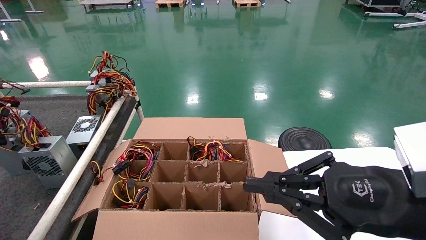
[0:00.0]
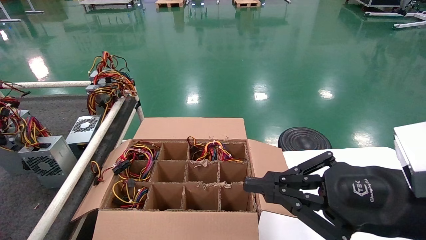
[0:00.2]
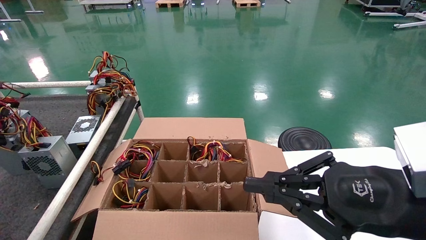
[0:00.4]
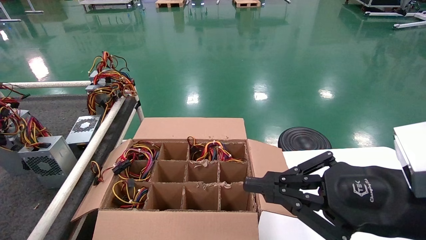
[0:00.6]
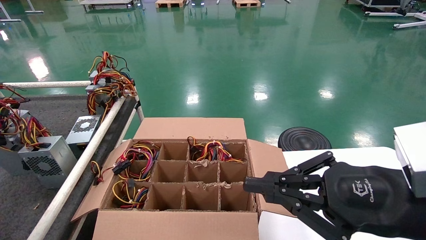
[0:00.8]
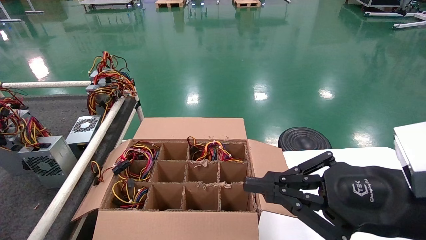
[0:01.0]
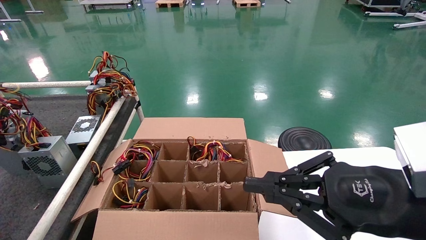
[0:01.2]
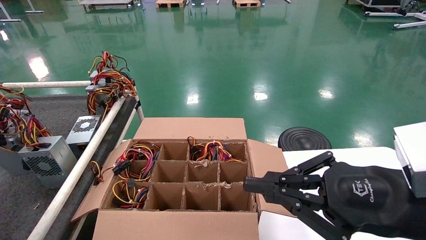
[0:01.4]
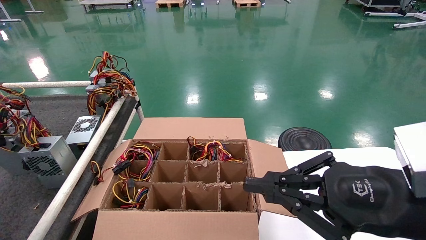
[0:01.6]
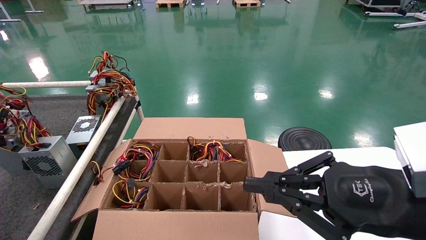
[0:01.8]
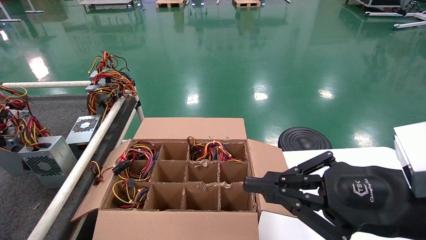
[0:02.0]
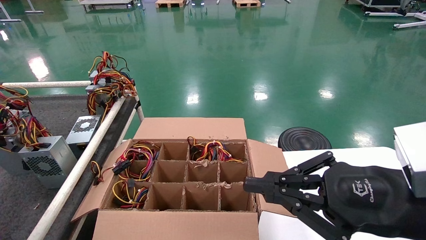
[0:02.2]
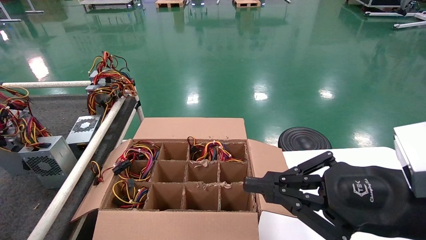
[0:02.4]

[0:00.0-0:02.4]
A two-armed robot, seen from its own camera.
0:00.0 to 0:01.2: Both grippers stay put.
